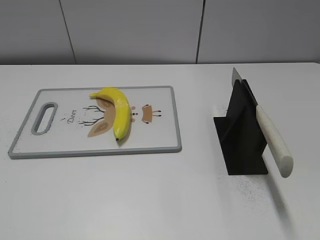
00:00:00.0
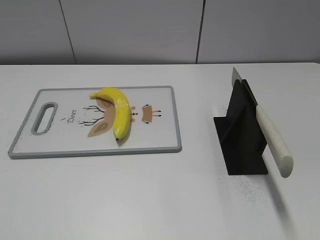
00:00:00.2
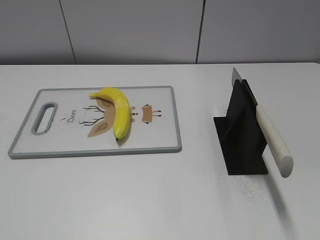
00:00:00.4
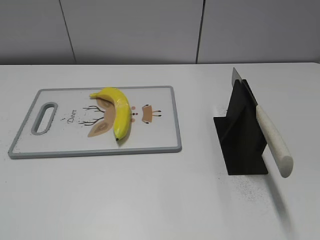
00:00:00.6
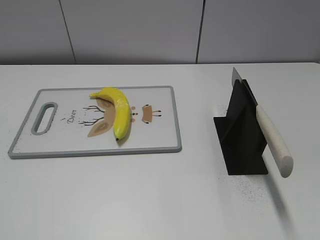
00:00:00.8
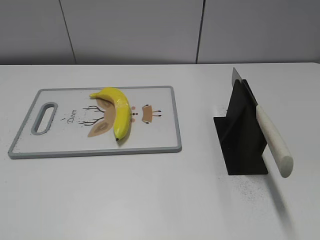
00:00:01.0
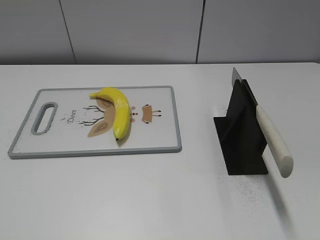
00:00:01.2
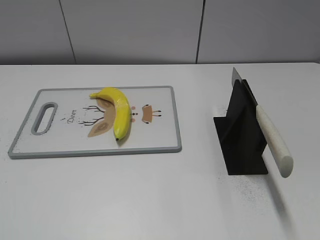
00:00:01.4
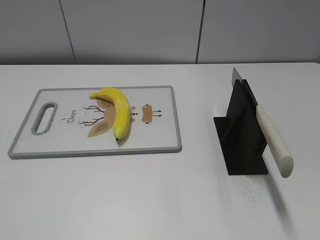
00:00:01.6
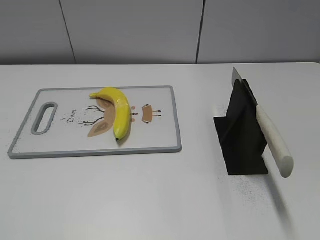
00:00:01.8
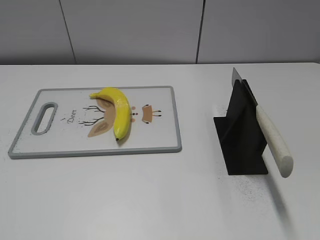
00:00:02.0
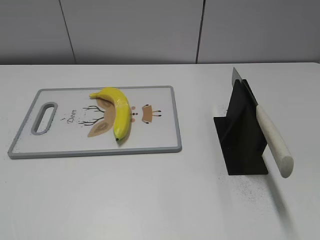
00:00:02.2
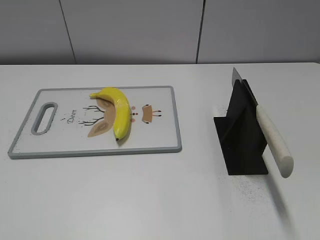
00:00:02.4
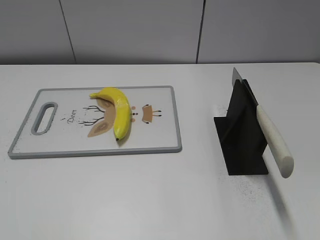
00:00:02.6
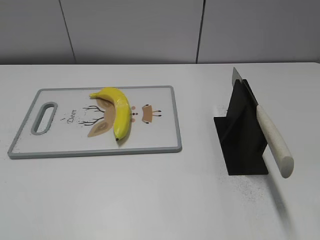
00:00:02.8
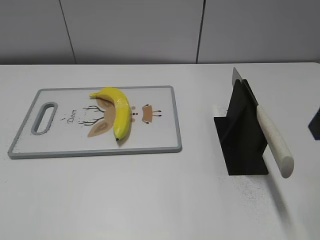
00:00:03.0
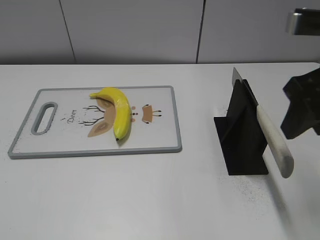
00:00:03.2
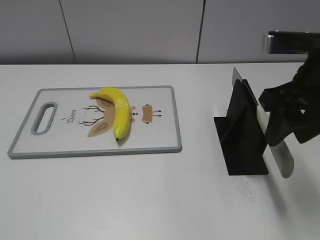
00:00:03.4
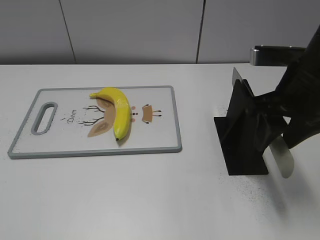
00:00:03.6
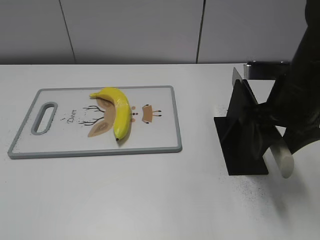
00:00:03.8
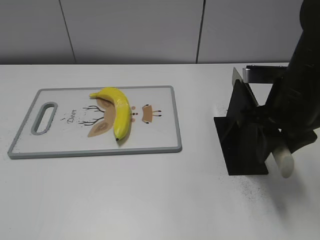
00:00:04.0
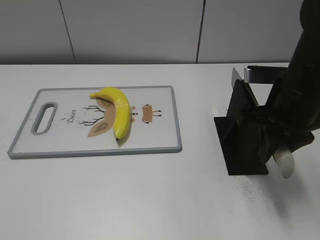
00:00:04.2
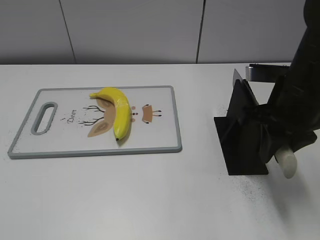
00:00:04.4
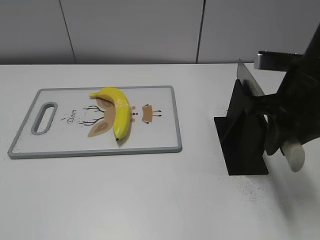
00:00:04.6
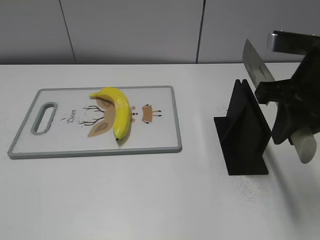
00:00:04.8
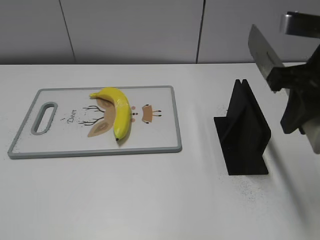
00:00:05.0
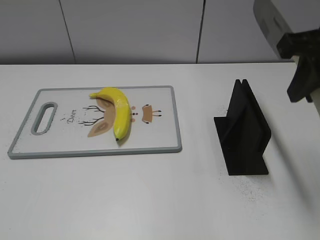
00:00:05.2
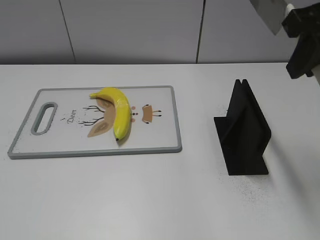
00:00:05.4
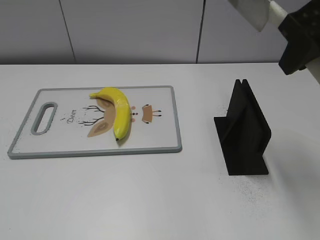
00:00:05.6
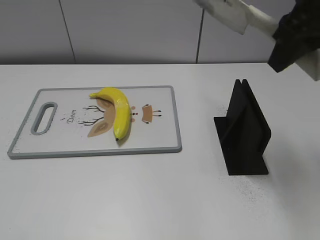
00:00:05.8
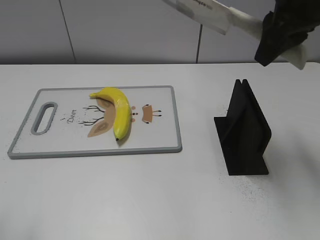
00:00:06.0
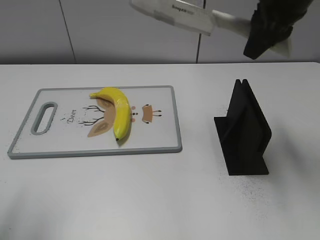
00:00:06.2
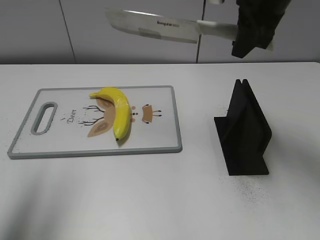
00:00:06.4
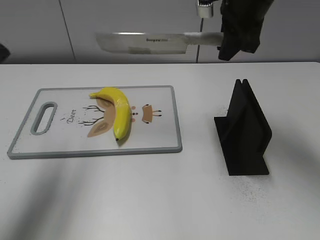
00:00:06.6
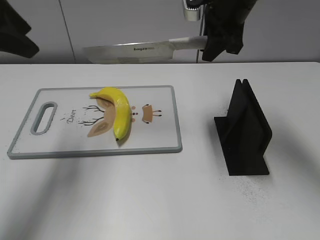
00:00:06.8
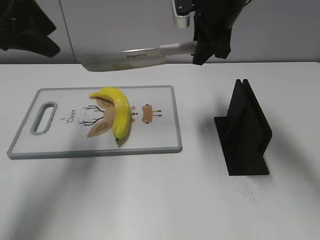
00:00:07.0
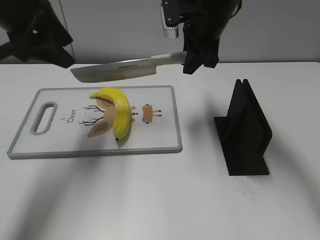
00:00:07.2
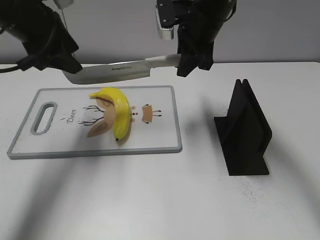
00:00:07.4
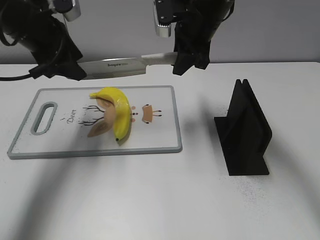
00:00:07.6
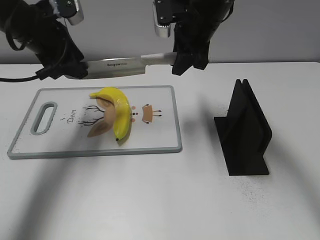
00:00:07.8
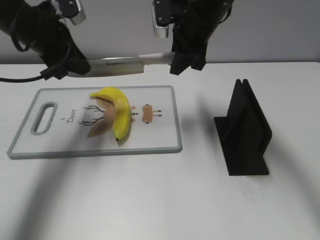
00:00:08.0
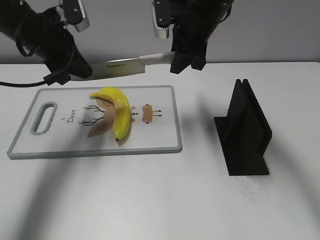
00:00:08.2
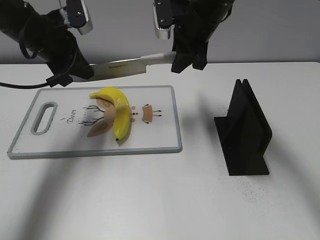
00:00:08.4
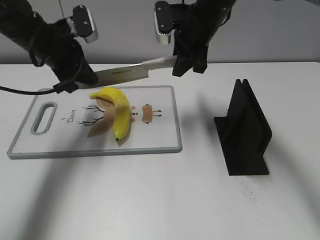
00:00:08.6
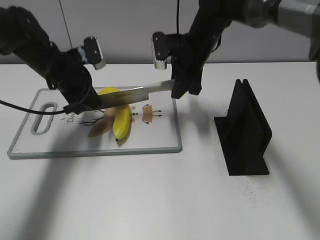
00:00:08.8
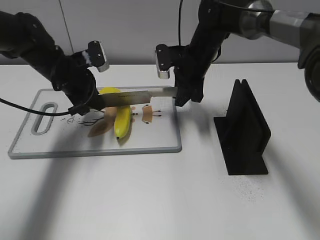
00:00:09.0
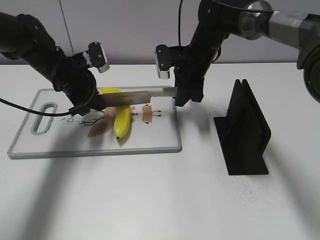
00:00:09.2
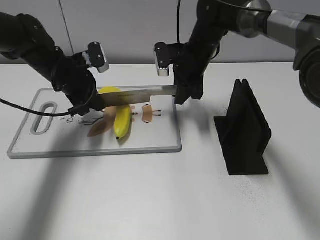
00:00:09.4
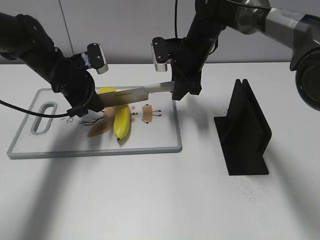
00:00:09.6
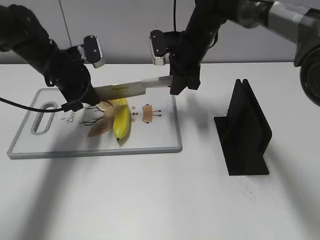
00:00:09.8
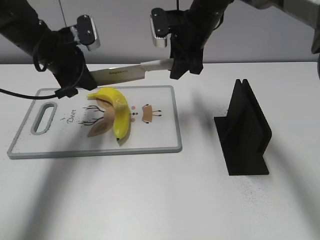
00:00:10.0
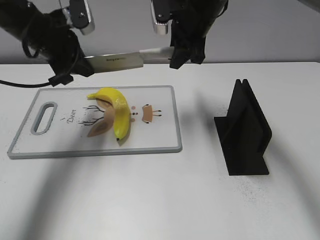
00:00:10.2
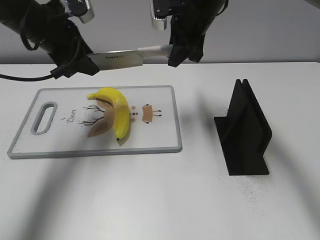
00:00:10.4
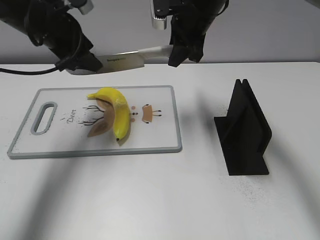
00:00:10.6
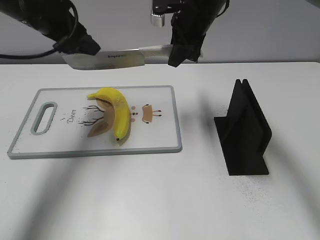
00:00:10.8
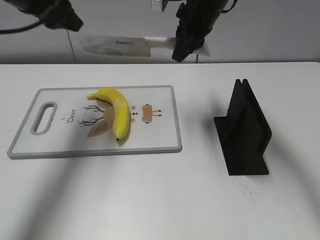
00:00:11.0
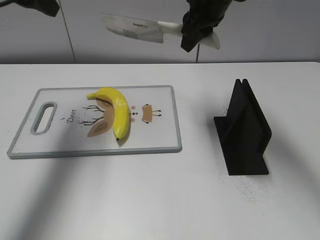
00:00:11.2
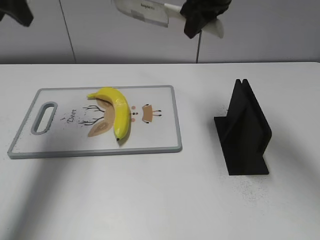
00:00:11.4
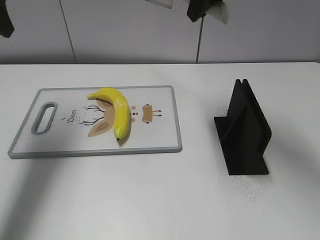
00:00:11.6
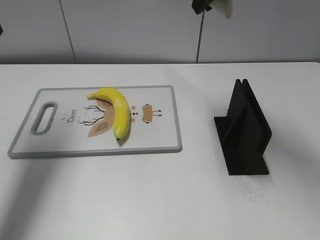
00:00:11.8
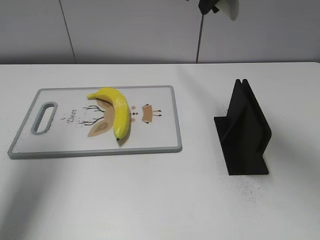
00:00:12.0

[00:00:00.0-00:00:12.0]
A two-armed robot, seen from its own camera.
Task of the whole recording: cut plastic banana.
Step, 00:00:00.0 to 00:00:05.2: Grab the knife handle with your right hand.
Step, 00:00:05.4 to 00:00:10.0: Hold the blade with your left hand.
Step, 00:00:10.2 to 00:00:11.0: Cut the banana with your right hand.
00:00:03.0 to 00:00:04.4: The right gripper goes roughly 10 cm downward and forward, and closes.
00:00:04.4 to 00:00:06.0: The right gripper travels upward by some 10 cm.
00:00:06.0 to 00:00:07.6: The left gripper travels forward by approximately 30 cm. The right gripper is displaced forward, downward and to the left by some 20 cm.
00:00:07.6 to 00:00:09.0: The grippers both shift downward by approximately 10 cm. The left gripper closes its fingers.
00:00:09.0 to 00:00:10.4: Both grippers move upward, about 10 cm. The left gripper opens its fingers.
00:00:10.4 to 00:00:12.0: The left gripper travels upward, backward and to the left by some 20 cm; the right gripper heads upward and backward, covering roughly 15 cm.

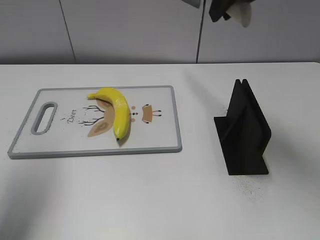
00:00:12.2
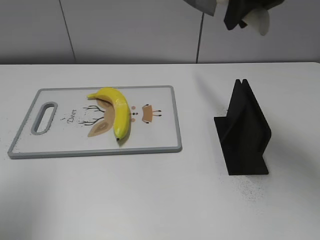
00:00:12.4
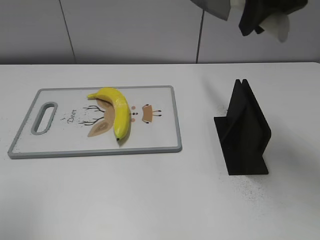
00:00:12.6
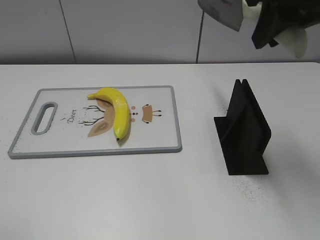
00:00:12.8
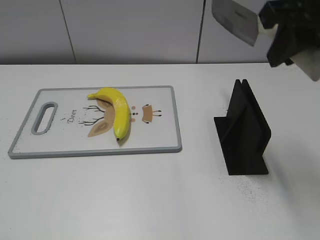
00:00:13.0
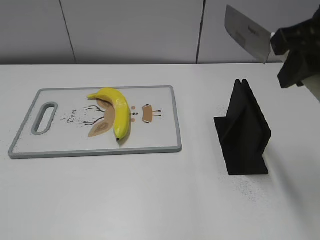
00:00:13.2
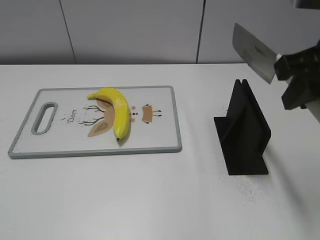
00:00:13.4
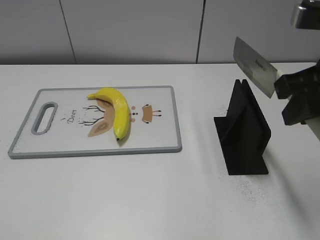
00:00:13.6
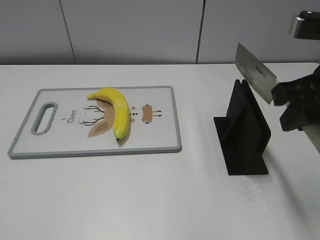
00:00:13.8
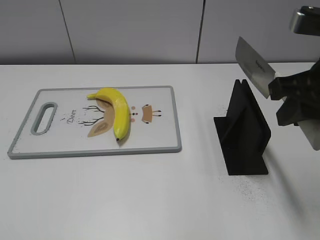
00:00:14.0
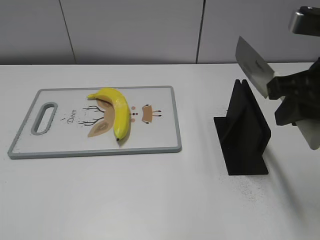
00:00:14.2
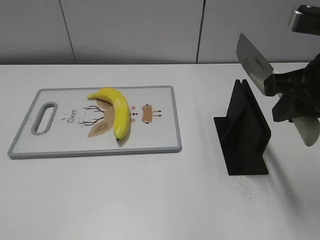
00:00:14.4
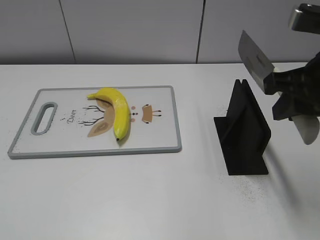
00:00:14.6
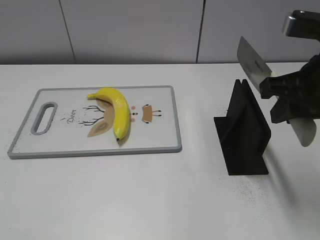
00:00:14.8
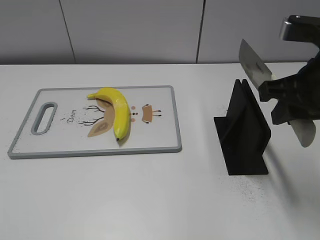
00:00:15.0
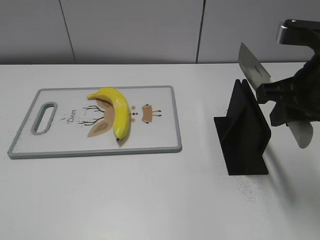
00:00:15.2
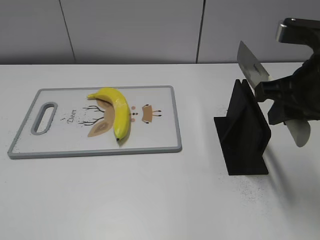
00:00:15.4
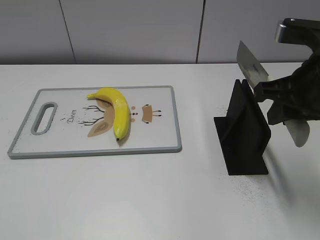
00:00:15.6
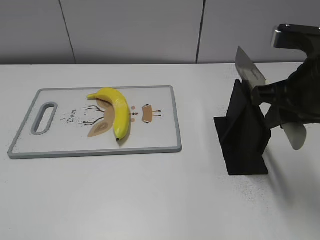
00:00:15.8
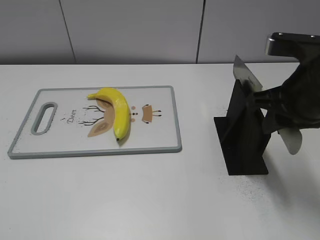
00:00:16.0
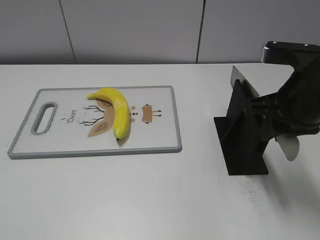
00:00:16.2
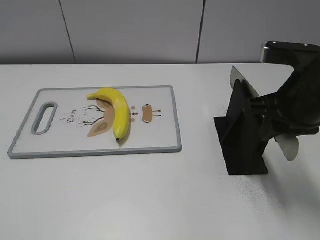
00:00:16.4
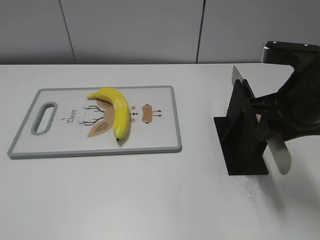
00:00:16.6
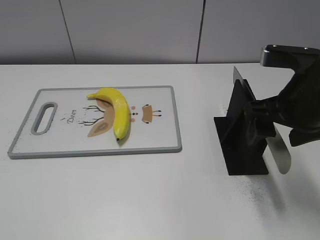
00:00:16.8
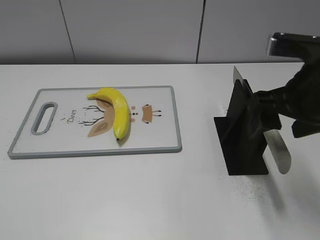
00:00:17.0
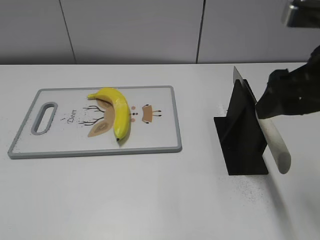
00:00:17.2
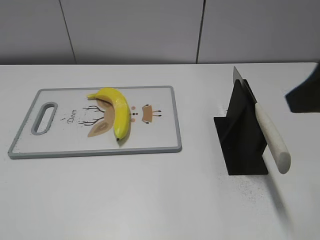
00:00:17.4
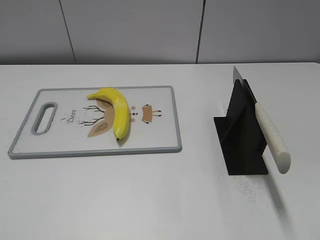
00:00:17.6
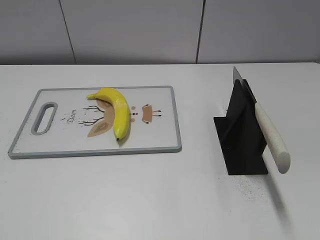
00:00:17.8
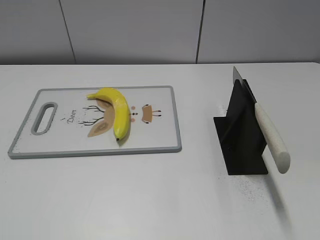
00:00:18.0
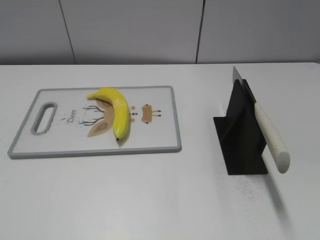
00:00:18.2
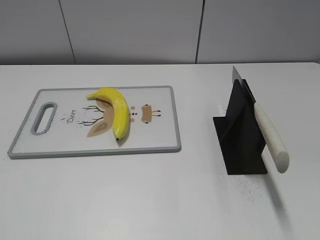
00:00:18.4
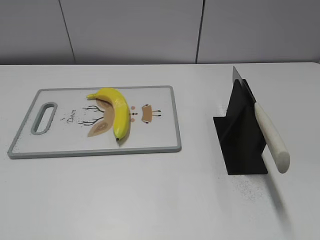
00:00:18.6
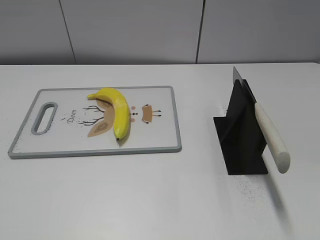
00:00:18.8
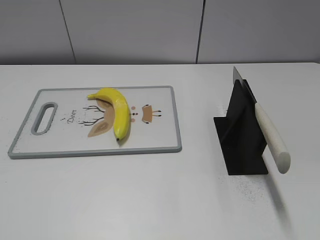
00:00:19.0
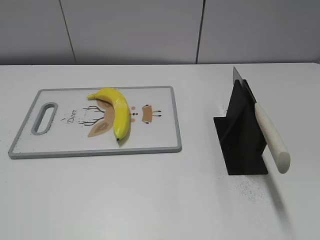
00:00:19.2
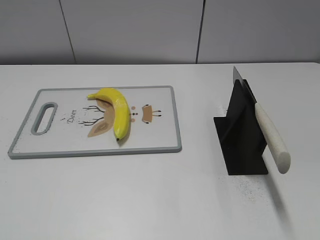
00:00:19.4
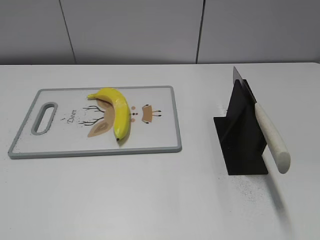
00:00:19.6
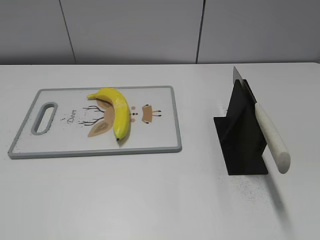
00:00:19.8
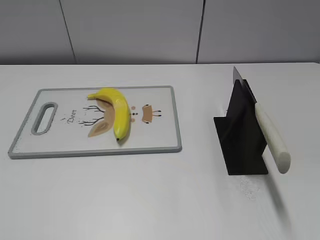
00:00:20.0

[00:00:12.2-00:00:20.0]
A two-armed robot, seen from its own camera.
Task of the whole recording: cut plastic banana.
Step, 00:00:13.0 to 00:00:20.0: Place the knife on the storage rack with your right hand.
00:00:12.2 to 00:00:13.8: The right gripper goes roughly 20 cm backward, downward and to the right, while the left gripper shifts about 25 cm backward.
00:00:13.8 to 00:00:15.4: The grippers stay close to where they were, moving slightly.
00:00:15.4 to 00:00:16.8: The right gripper opens up.
00:00:16.8 to 00:00:18.4: The right gripper travels backward and to the right by approximately 30 cm.

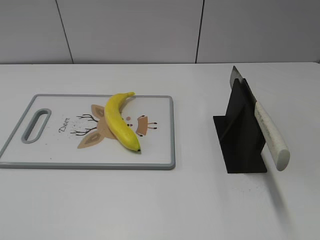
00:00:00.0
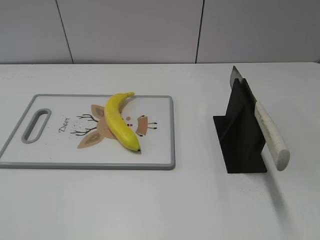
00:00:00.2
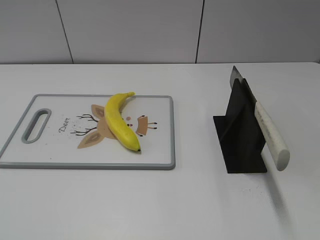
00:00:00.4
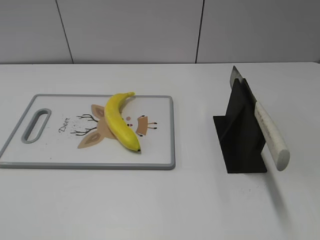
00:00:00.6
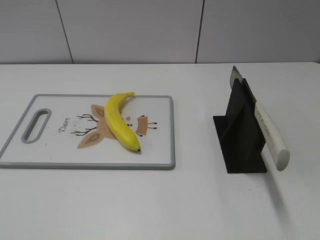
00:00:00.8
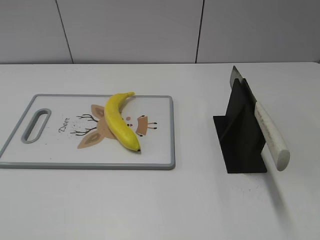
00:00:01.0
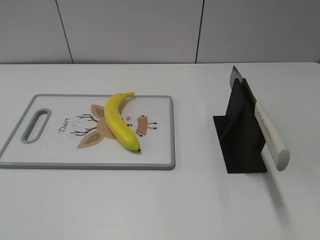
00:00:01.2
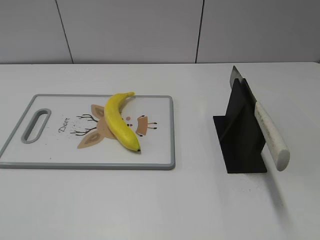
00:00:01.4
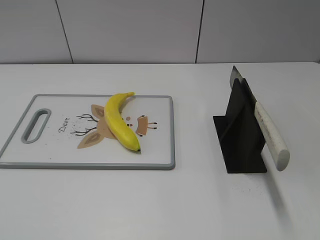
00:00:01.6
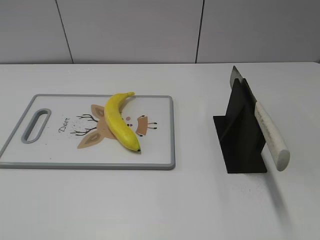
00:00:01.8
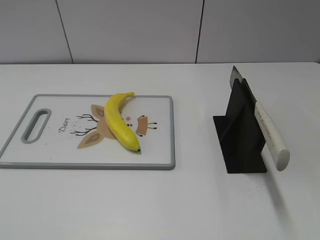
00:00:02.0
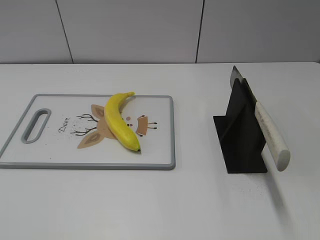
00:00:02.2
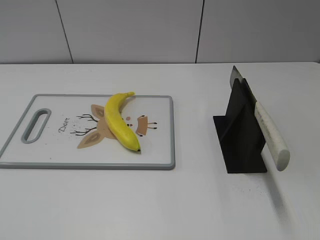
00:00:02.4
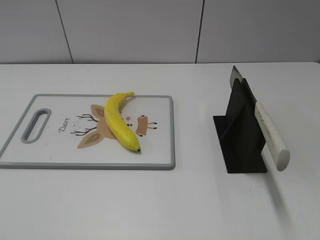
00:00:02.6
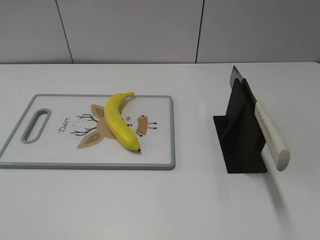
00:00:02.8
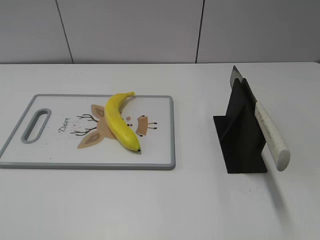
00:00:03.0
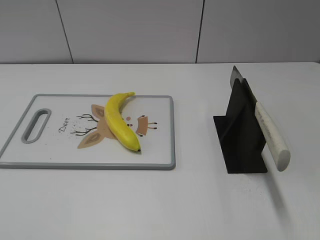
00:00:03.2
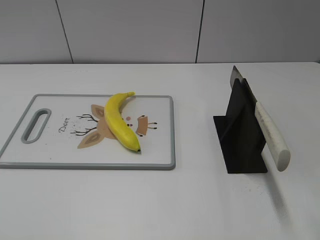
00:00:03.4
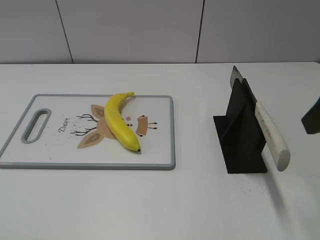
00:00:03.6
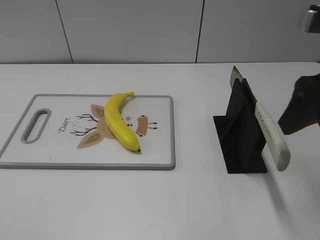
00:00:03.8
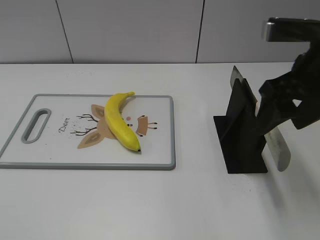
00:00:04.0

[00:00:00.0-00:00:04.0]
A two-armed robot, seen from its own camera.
Task of the whole recording: cut plastic banana.
00:00:02.6 to 00:00:04.0: The right gripper moves forward and to the left, approximately 25 cm.
